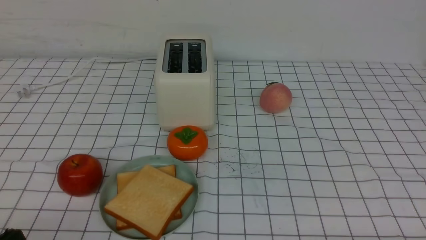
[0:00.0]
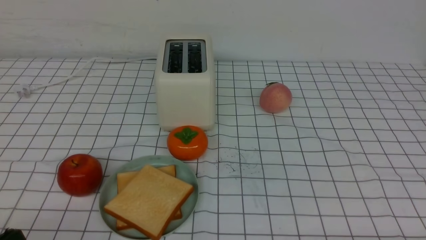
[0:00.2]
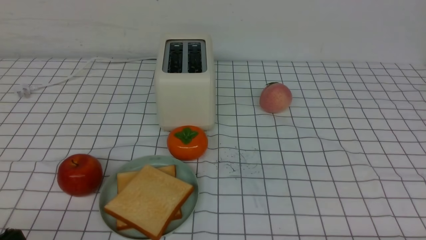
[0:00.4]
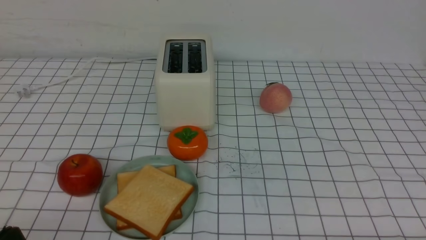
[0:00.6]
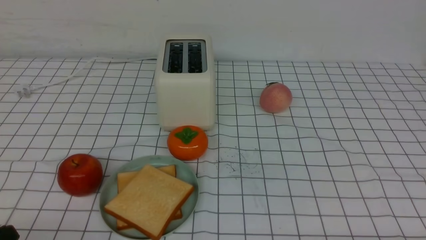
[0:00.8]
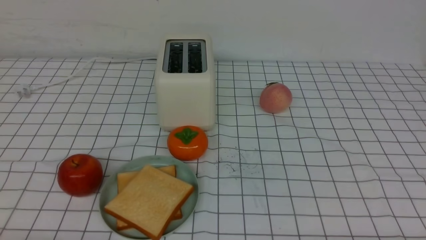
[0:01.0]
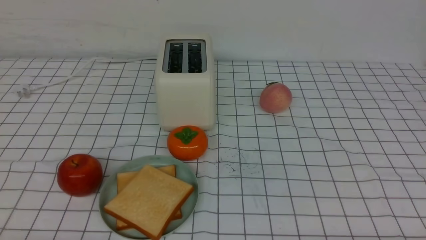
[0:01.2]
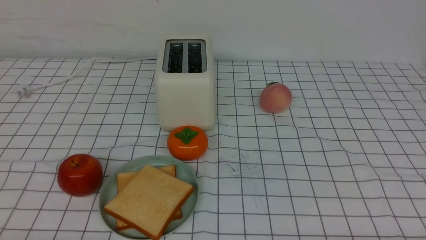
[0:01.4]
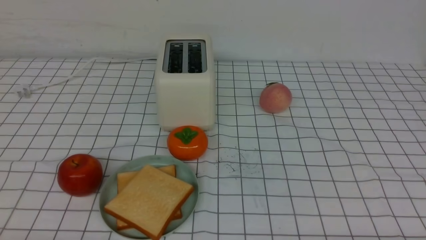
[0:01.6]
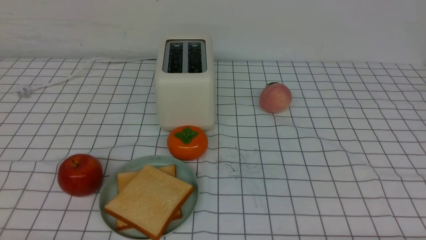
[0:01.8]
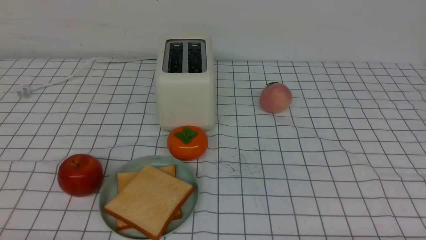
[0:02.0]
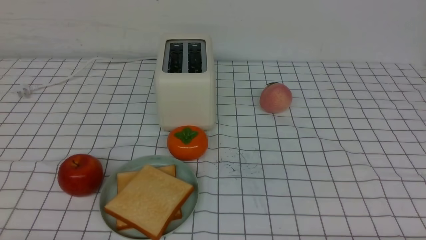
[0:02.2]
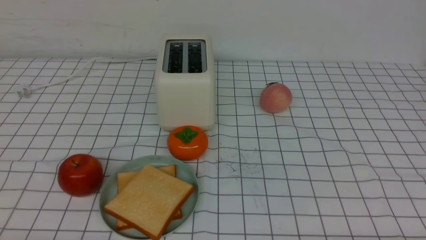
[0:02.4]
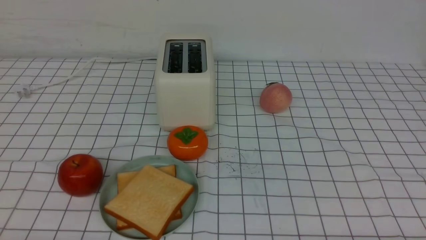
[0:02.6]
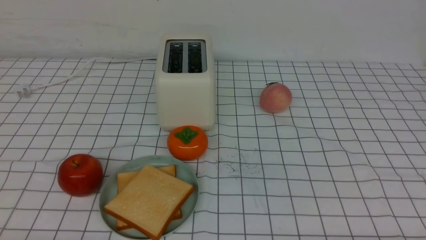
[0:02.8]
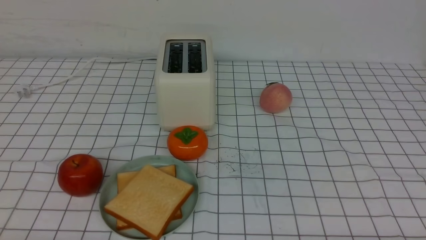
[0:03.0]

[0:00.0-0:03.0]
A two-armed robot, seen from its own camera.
Task of the whole recording: take toasted bread from bread machine on white checkered table place on plate.
0:01.6 to 0:03.0: Both grippers stay about where they are.
